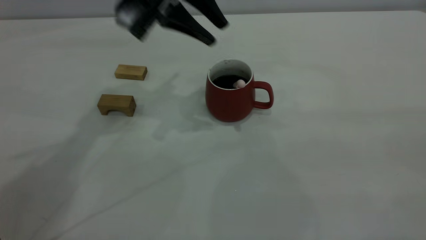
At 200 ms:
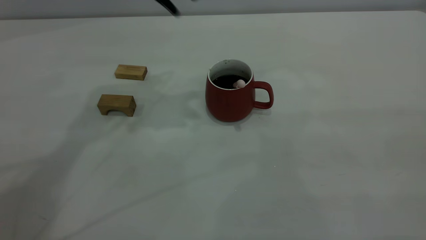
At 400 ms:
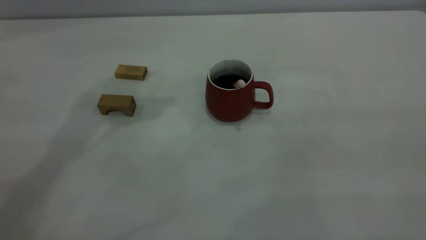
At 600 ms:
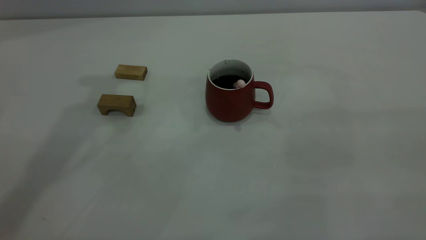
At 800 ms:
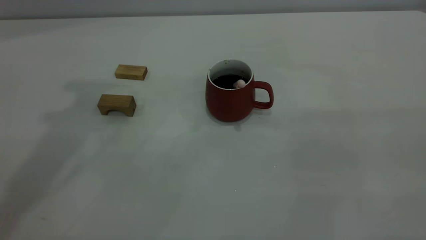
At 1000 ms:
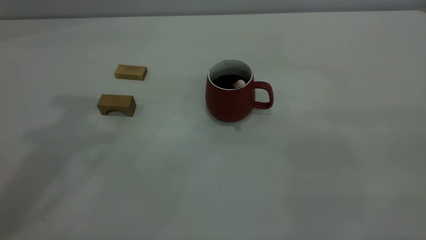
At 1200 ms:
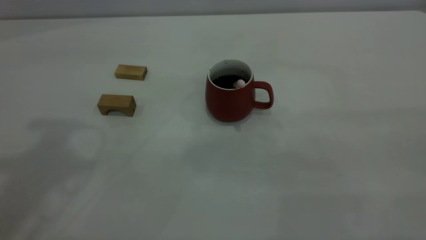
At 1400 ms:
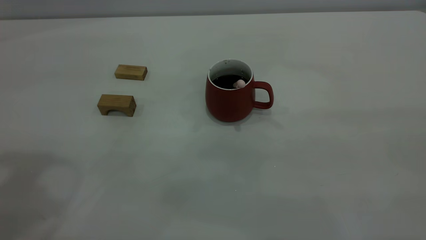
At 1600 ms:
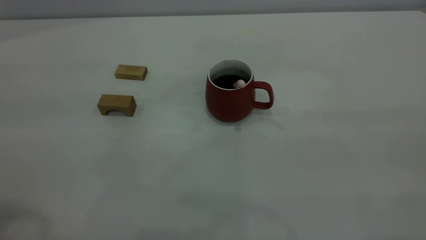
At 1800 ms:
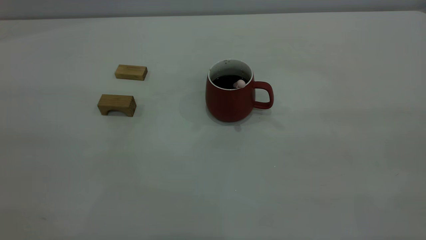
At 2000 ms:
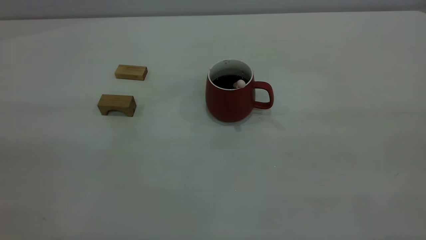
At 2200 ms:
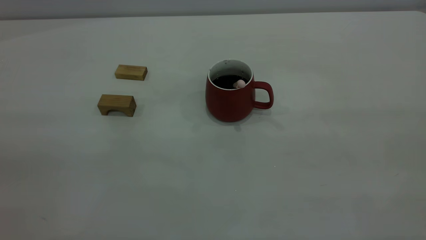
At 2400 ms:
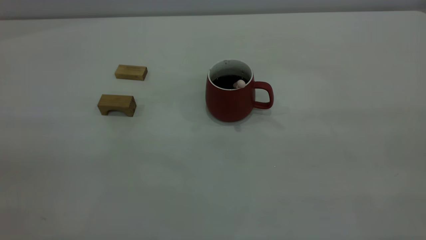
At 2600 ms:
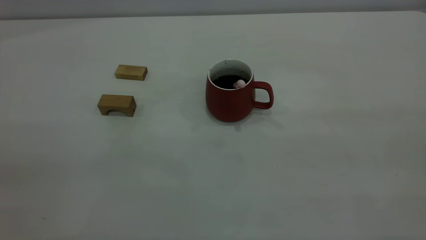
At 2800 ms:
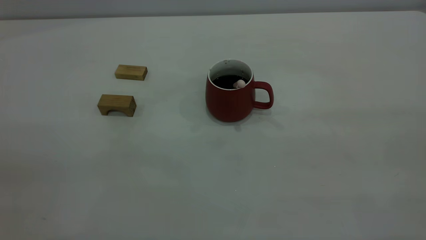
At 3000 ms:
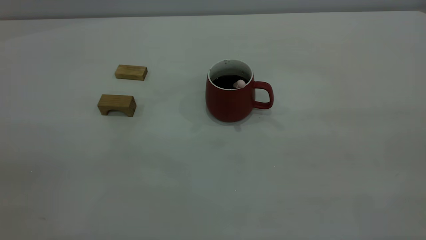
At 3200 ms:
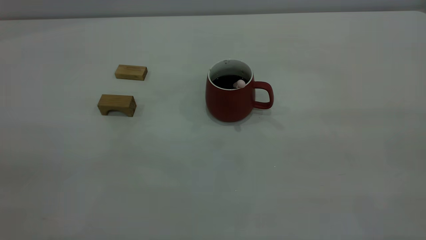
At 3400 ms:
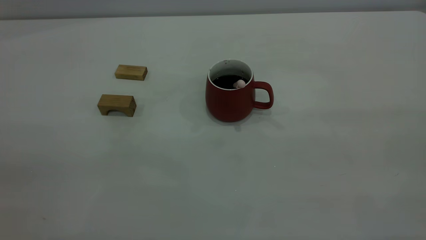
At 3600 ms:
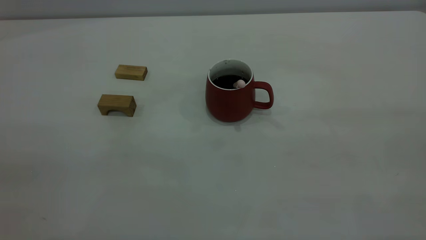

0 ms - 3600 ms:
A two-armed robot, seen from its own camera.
0 ms - 1800 ms: The left gripper moves backward, to the left and upward, roughly 40 cm.
